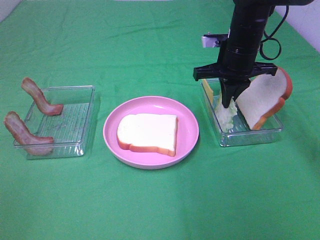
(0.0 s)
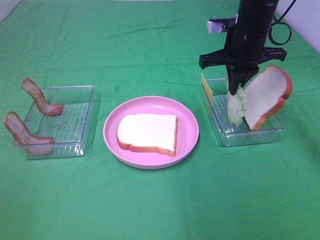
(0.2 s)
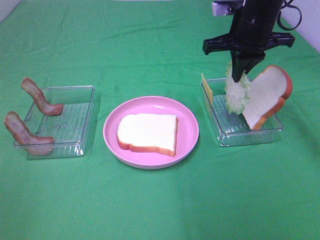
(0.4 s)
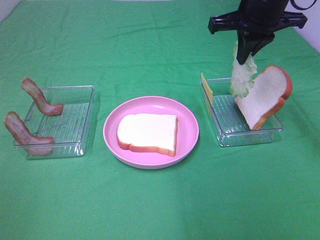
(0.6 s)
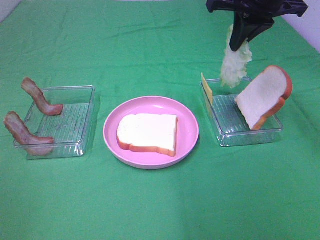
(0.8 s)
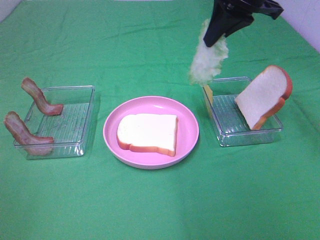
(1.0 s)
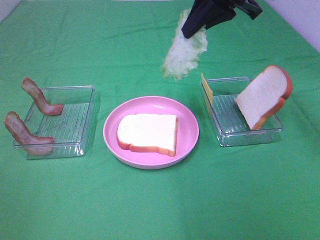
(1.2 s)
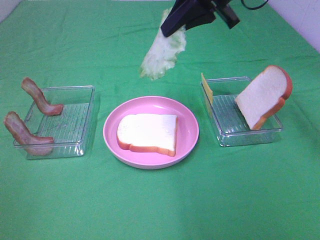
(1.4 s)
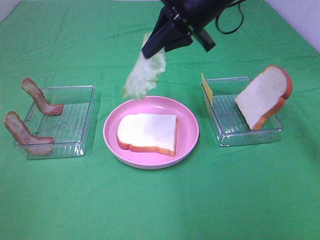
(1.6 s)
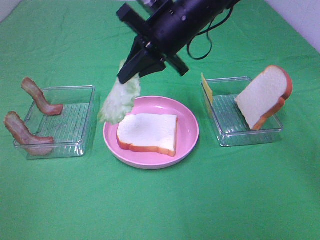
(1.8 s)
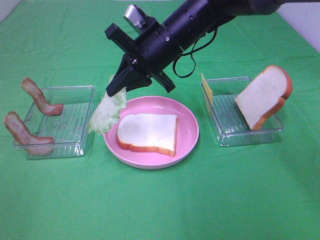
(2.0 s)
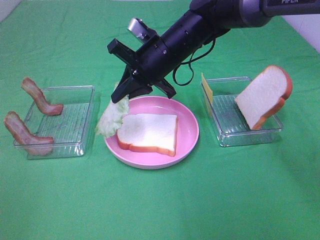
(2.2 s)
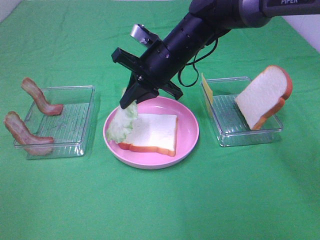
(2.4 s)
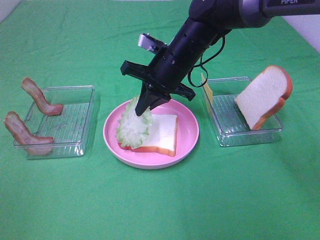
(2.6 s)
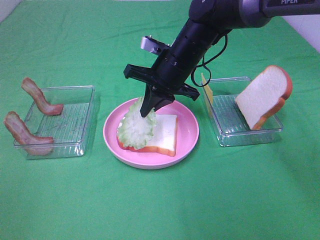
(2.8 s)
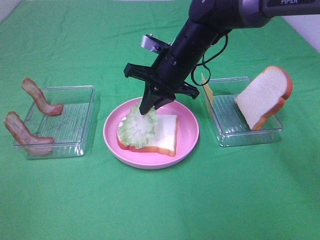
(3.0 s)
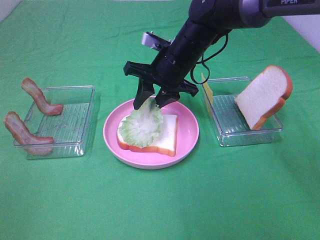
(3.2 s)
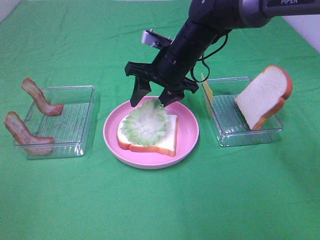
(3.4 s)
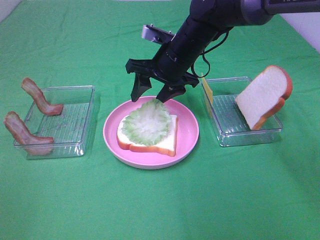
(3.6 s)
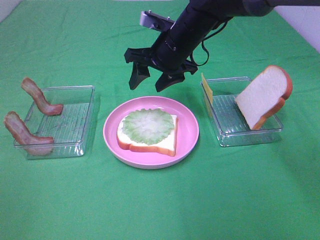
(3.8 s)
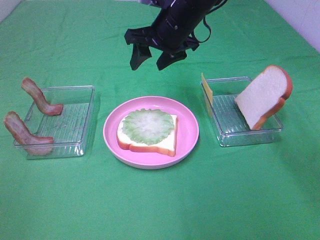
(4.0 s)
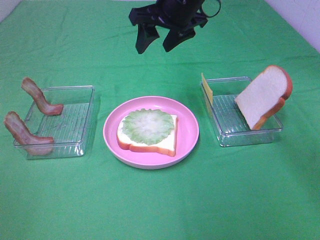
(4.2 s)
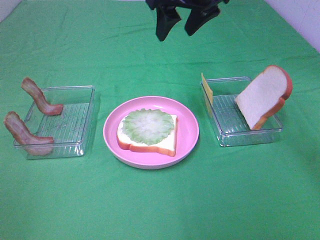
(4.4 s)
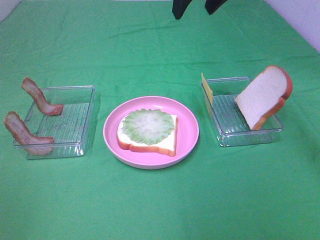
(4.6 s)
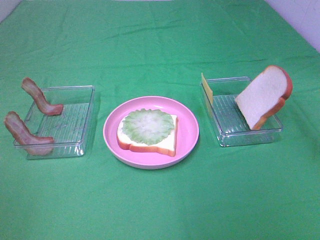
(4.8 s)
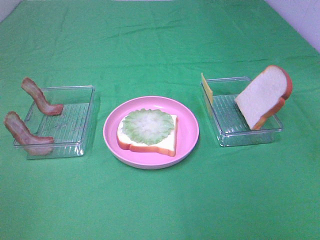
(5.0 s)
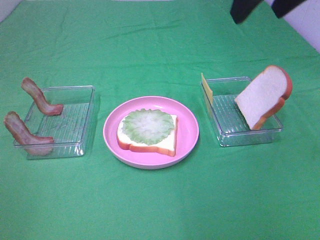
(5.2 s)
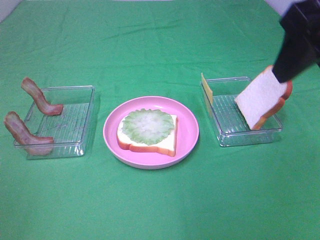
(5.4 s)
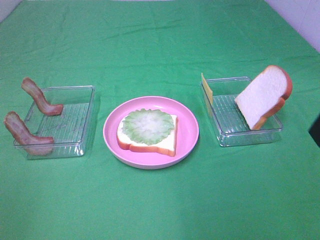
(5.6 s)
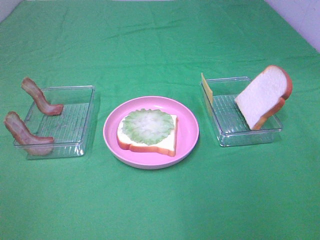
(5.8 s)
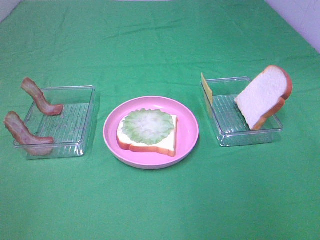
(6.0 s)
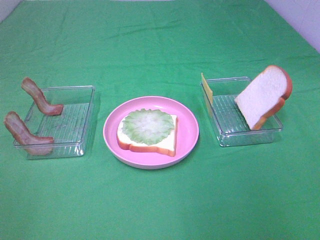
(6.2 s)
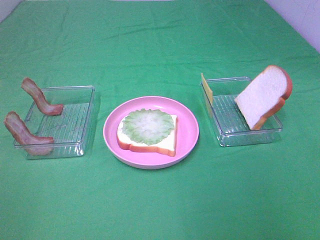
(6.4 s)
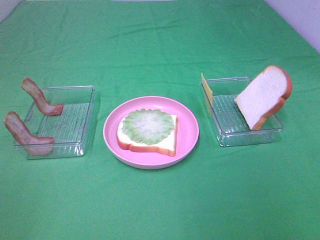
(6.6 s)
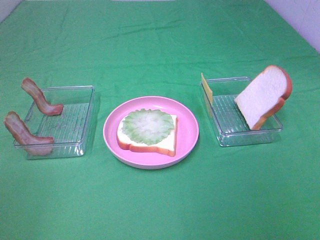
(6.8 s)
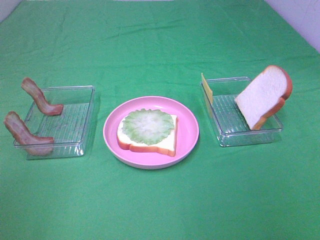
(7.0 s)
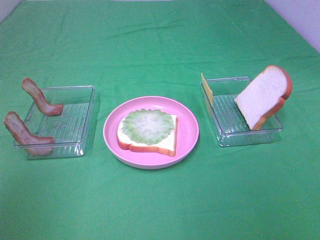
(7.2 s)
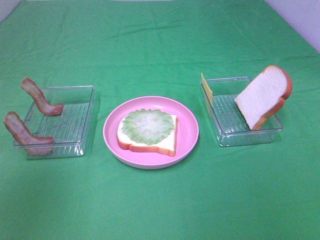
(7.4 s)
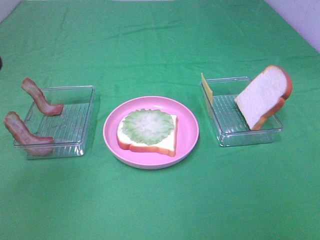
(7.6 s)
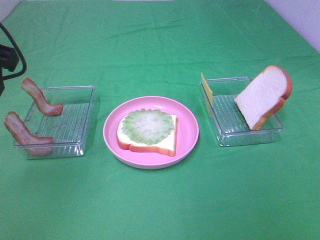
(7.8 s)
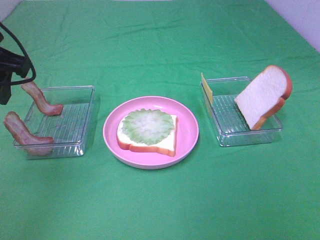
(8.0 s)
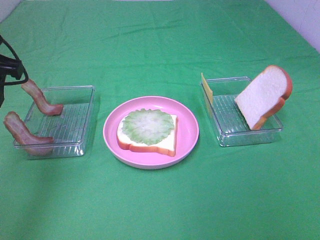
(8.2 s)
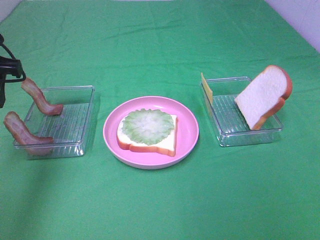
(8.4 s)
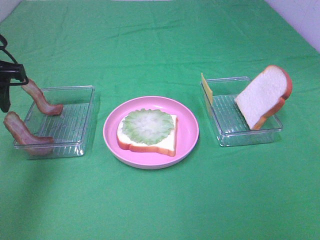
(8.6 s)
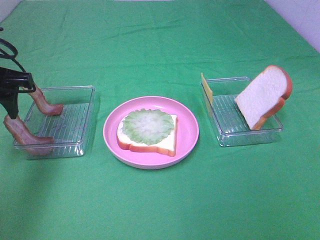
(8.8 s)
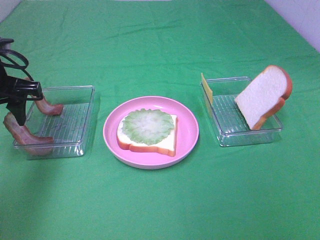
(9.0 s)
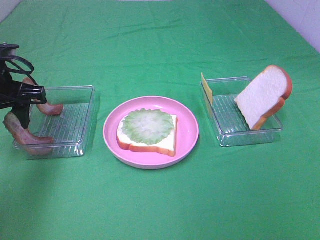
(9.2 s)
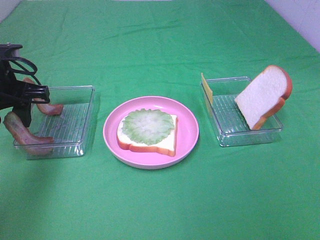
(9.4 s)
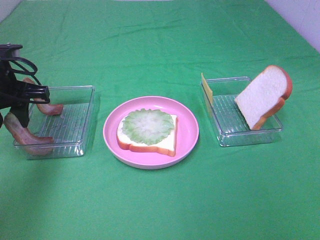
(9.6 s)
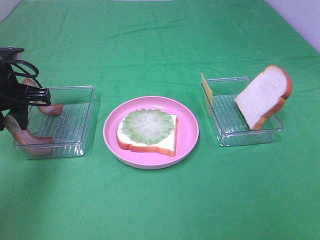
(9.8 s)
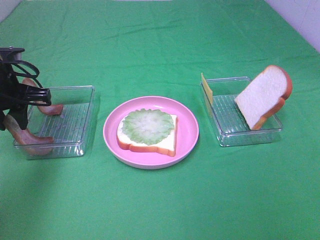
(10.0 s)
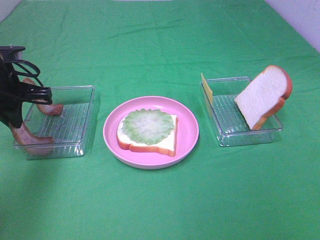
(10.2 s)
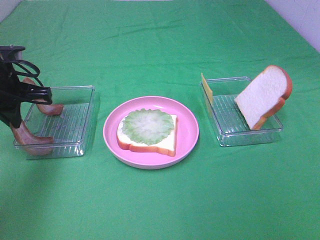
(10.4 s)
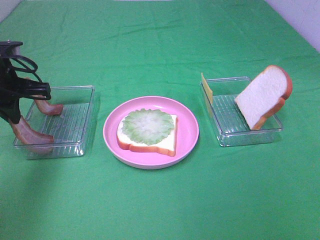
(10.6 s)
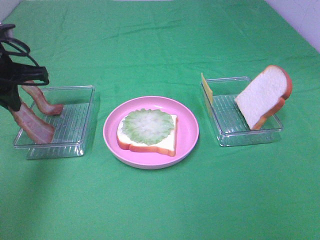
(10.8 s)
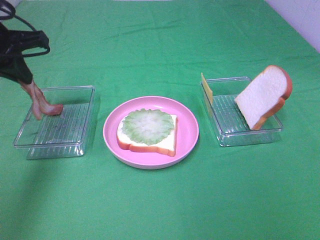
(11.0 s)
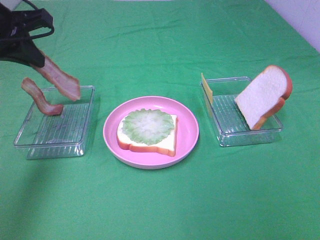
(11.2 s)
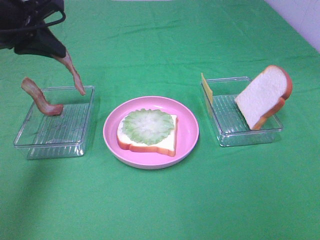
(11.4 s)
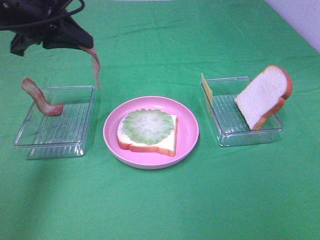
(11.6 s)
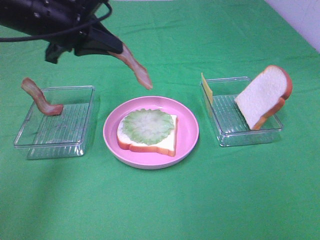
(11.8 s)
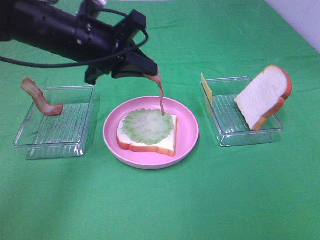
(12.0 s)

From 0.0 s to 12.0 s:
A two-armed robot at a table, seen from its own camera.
Task of the whole recording: Make sandwiches.
Step, from 4.0 s to 10.6 s: Left hand:grab the bacon.
From 0.0 s to 1.6 s: The right gripper moves upward and to the left, approximately 10 cm.
From 1.6 s to 3.0 s: The right gripper is displaced downward by roughly 10 cm.
From 3.0 s to 4.4 s: The right gripper travels upward by about 15 cm, and opens up.
From 4.4 s to 6.0 s: The right gripper travels backward and to the right by approximately 35 cm.
From 6.0 s to 7.6 s: The left gripper heads forward and to the right, covering approximately 25 cm.
From 7.6 s to 9.0 s: The left gripper shifts roughly 20 cm downward and forward.
From 9.0 s to 10.4 s: The left gripper closes its fingers.
From 10.4 s to 12.0 s: The left gripper goes approximately 15 cm to the right.

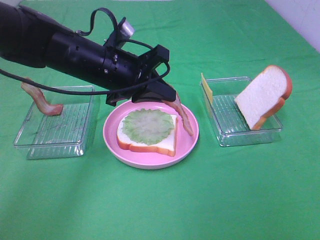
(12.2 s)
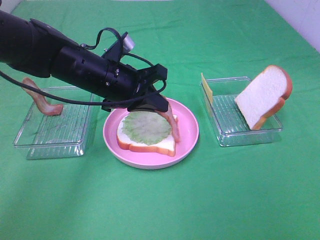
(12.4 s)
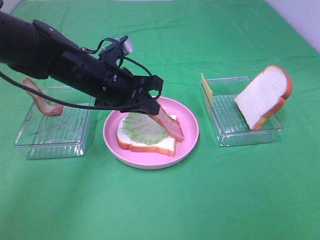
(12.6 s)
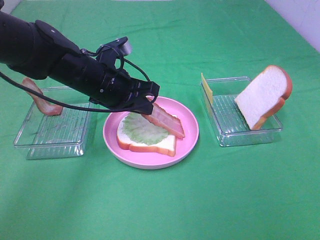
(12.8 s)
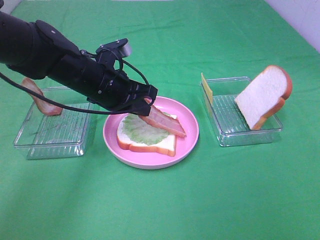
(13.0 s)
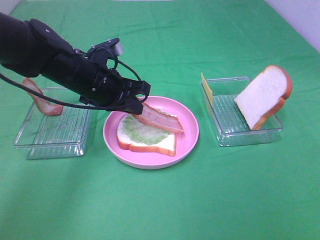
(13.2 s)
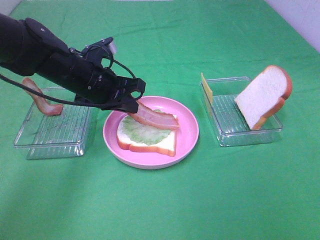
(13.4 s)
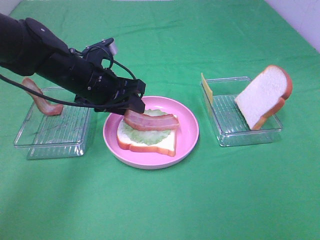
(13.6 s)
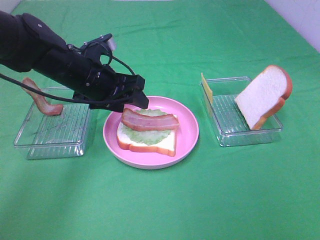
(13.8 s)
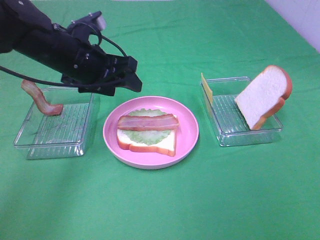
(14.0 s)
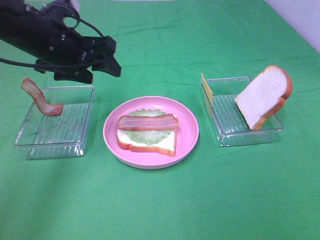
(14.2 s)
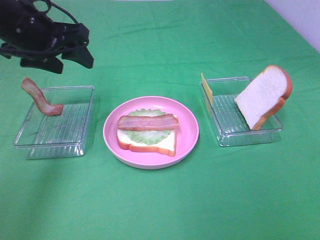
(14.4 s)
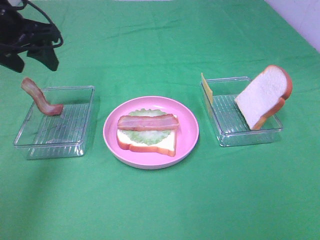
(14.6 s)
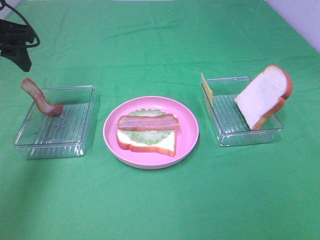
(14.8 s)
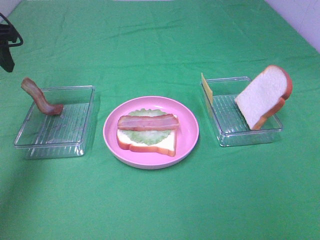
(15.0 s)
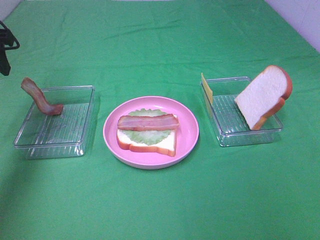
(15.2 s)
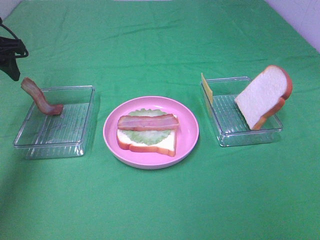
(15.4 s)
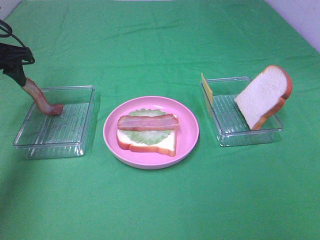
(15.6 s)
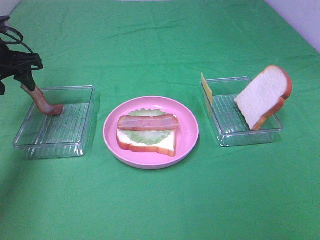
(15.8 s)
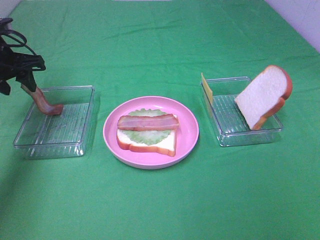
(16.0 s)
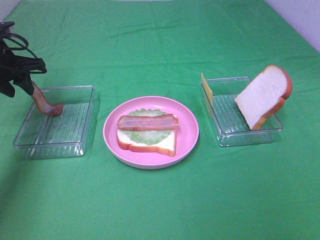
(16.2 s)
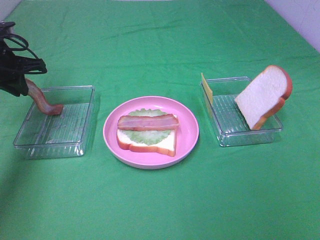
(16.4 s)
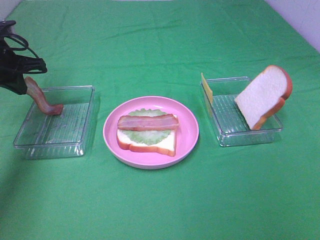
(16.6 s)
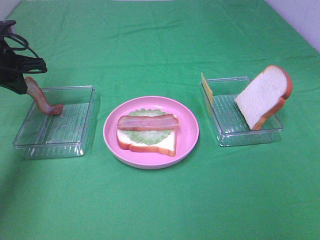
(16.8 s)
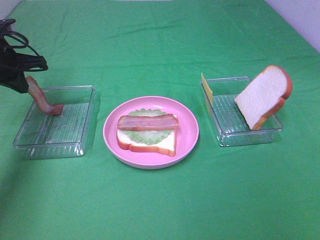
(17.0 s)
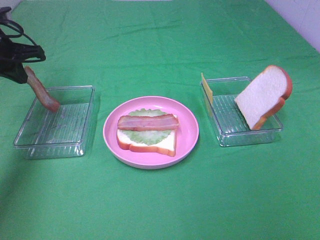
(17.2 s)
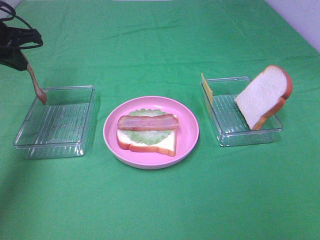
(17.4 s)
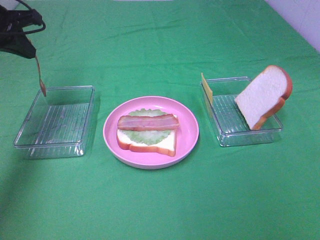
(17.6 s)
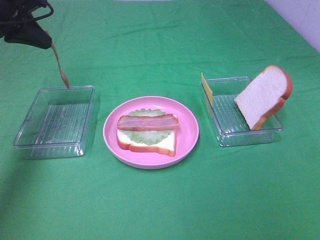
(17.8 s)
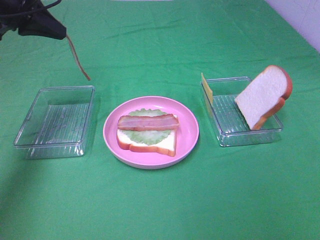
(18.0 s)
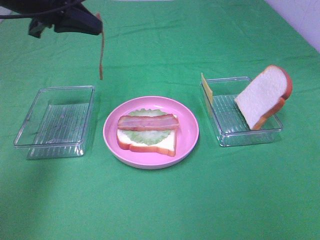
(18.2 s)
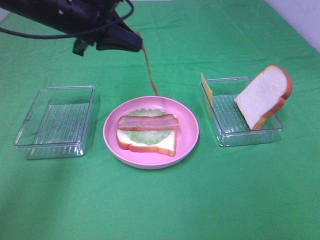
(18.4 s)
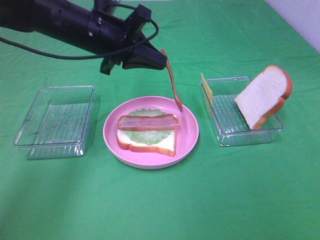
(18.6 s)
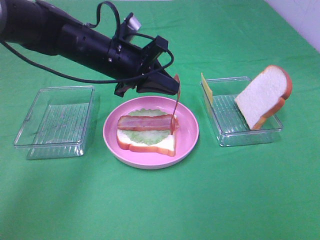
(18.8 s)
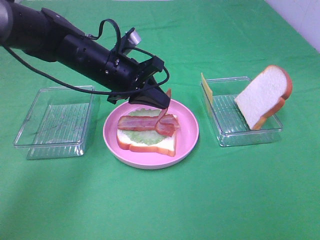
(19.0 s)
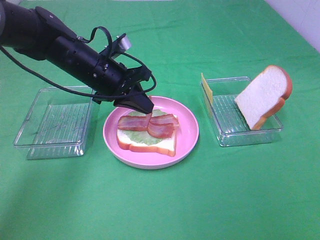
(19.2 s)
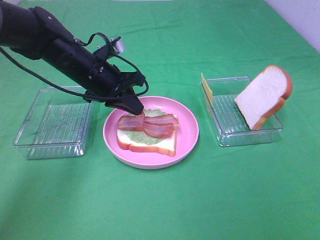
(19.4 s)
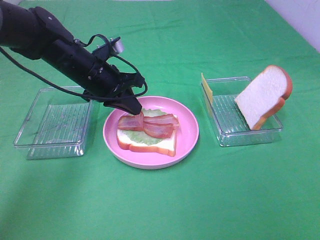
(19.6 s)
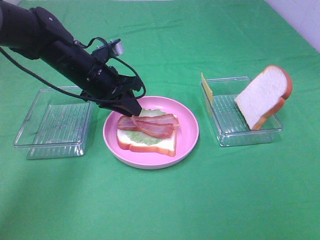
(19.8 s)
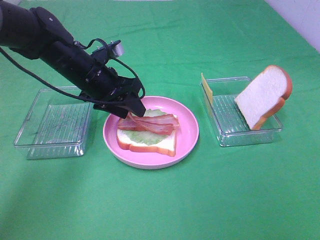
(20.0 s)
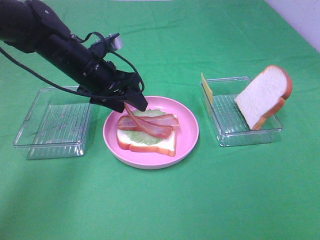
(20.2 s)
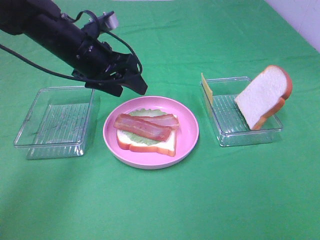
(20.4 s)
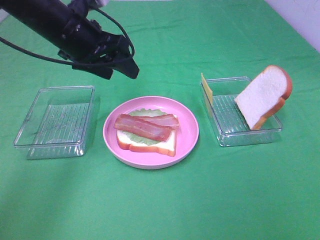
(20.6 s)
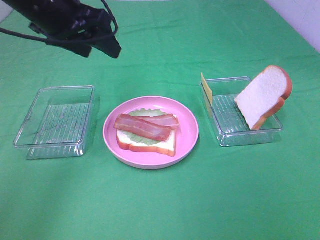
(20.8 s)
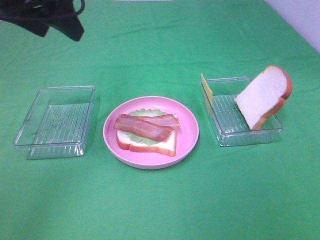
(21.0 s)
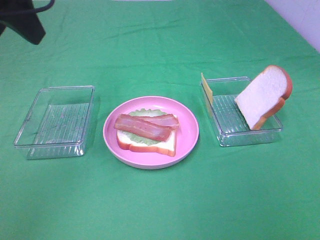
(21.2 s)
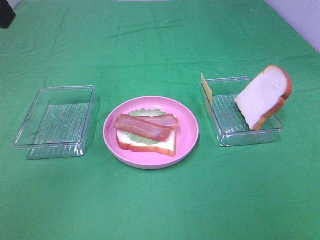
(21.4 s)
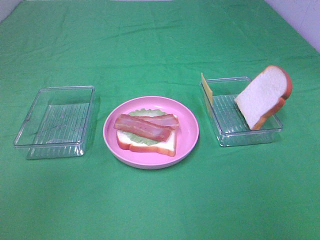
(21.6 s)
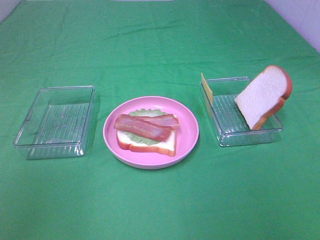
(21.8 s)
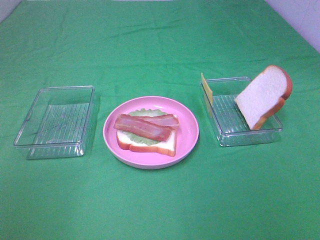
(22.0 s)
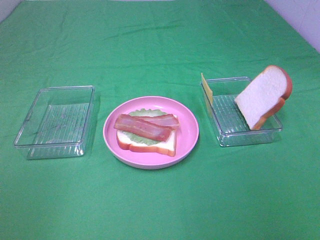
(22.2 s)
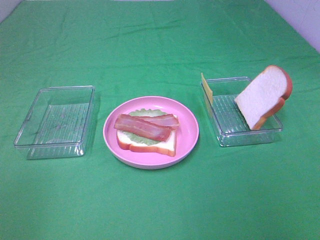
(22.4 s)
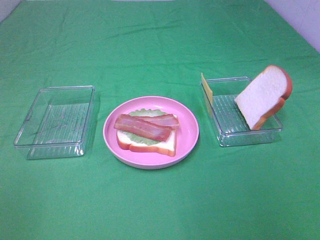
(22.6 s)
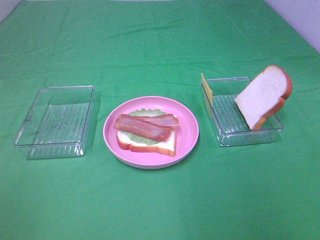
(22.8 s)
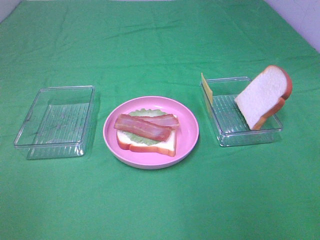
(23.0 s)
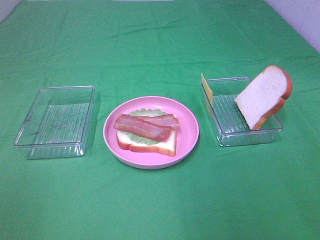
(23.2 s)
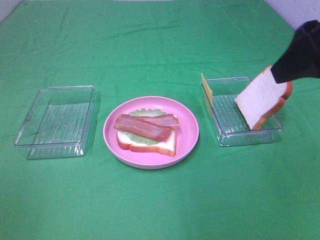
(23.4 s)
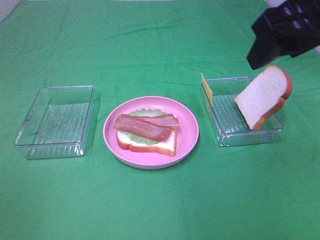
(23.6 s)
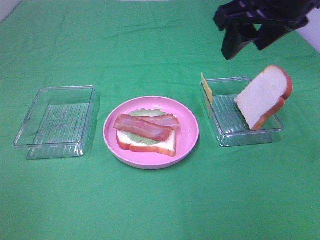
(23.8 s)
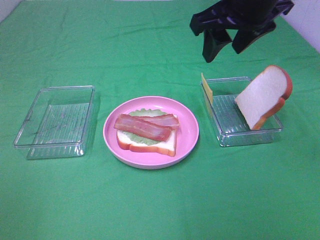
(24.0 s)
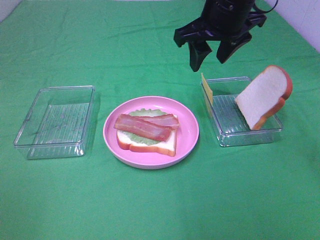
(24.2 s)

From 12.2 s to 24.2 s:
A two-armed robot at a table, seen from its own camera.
Task of the whole recording: Make sandwiches.
Step, from 12.2 s to 13.8 s: Left hand:place bacon on lettuce slice.
Step, from 14.0 s to 16.6 s: Left hand:grab the bacon.
From 12.2 s to 13.8 s: The left gripper opens its fingers.
From 13.8 s to 15.2 s: The left gripper shifts roughly 20 cm to the left and upward.
From 15.2 s to 16.6 s: The left gripper heads downward and forward, covering roughly 10 cm, and closes.
From 16.6 s to 18.2 s: The left gripper heads to the right and upward, covering some 15 cm.
From 18.2 s to 19.8 s: The left gripper travels downward and to the right by some 15 cm.
From 19.8 s to 21.2 s: The left gripper moves upward and backward, some 25 cm, and opens its fingers.
From 21.2 s to 22.6 s: The left gripper heads backward, covering about 30 cm.
From 22.6 s to 24.2 s: The right gripper heads forward and to the left, covering approximately 40 cm.
